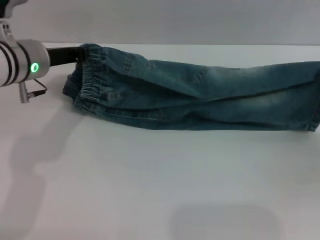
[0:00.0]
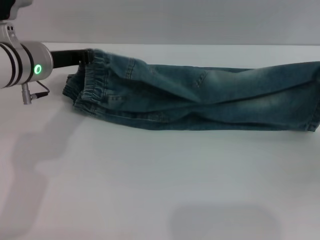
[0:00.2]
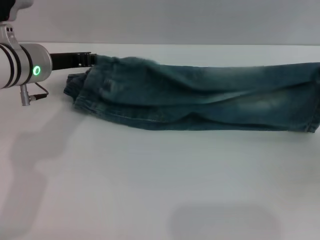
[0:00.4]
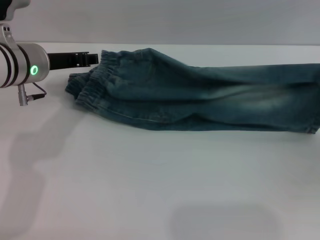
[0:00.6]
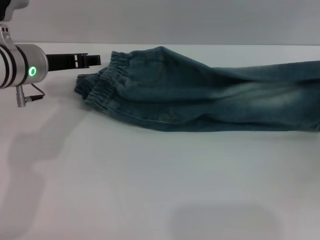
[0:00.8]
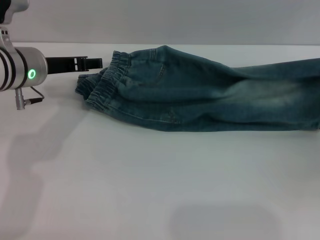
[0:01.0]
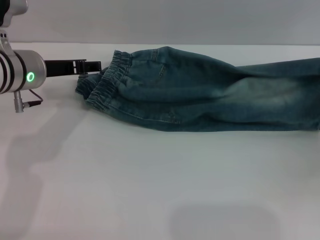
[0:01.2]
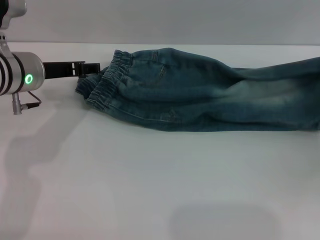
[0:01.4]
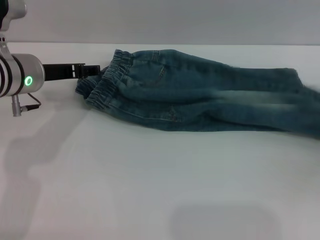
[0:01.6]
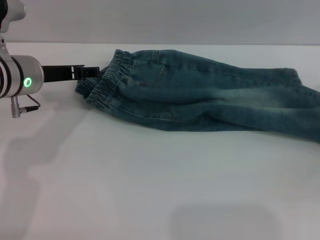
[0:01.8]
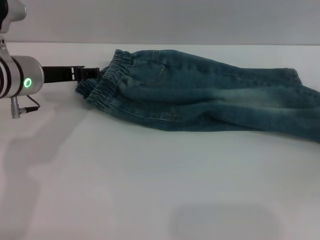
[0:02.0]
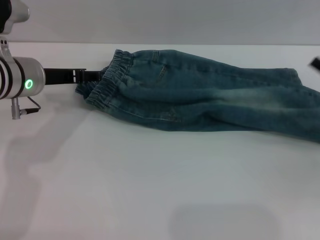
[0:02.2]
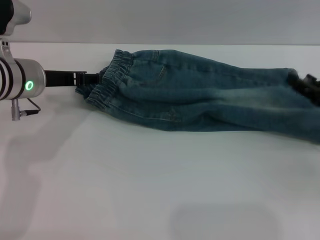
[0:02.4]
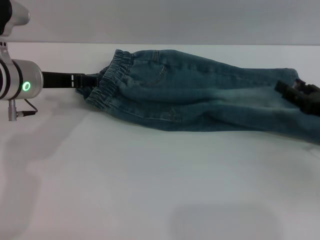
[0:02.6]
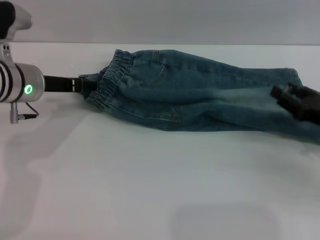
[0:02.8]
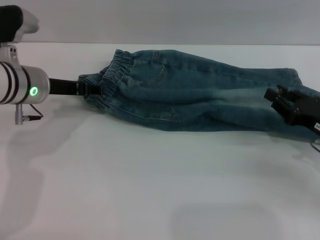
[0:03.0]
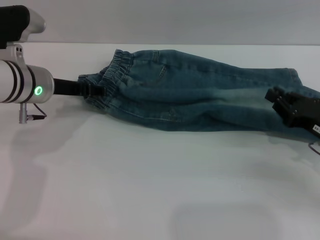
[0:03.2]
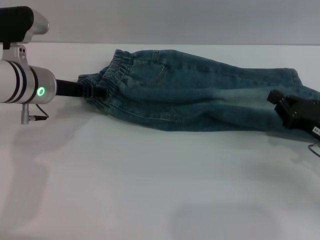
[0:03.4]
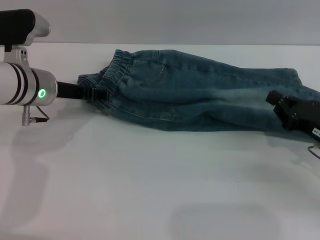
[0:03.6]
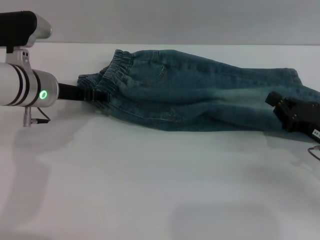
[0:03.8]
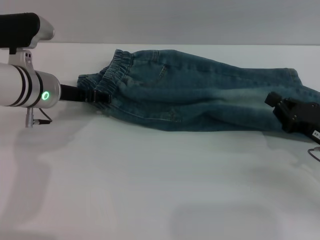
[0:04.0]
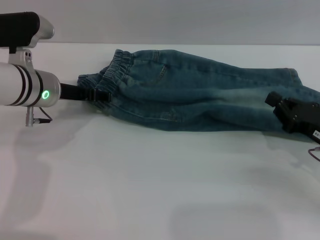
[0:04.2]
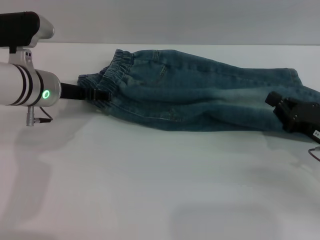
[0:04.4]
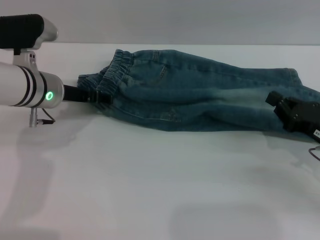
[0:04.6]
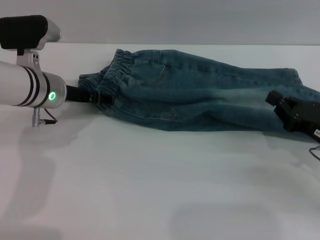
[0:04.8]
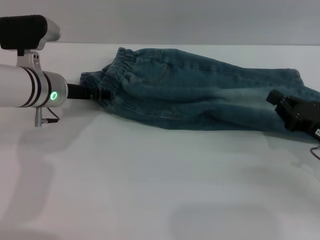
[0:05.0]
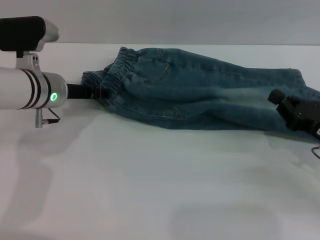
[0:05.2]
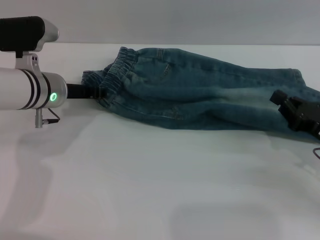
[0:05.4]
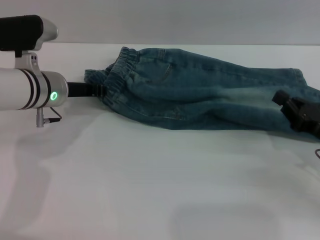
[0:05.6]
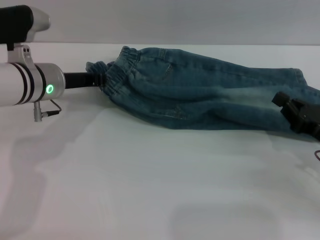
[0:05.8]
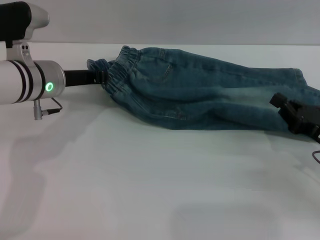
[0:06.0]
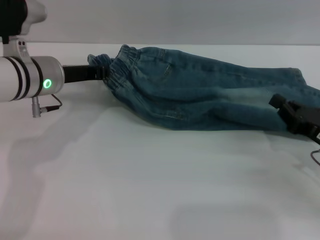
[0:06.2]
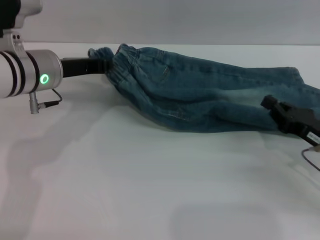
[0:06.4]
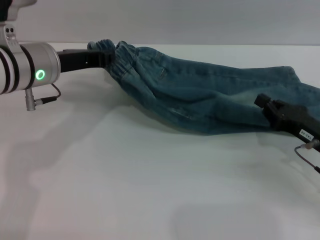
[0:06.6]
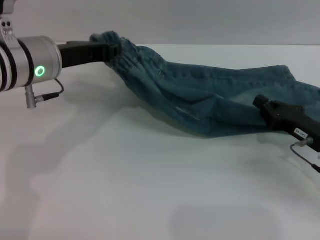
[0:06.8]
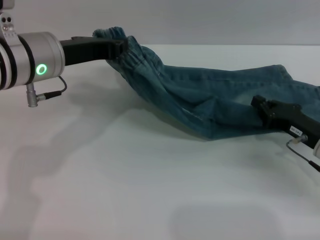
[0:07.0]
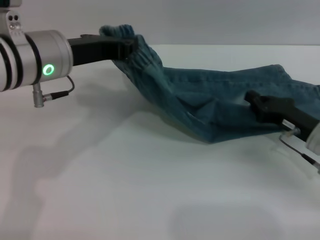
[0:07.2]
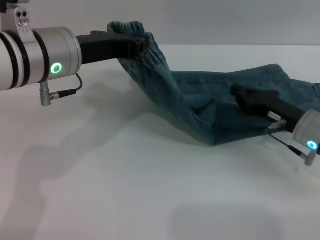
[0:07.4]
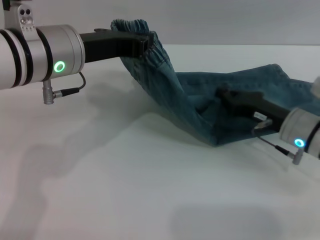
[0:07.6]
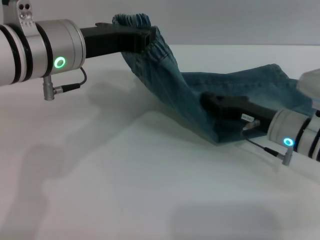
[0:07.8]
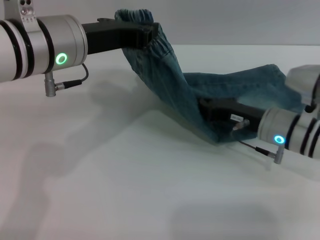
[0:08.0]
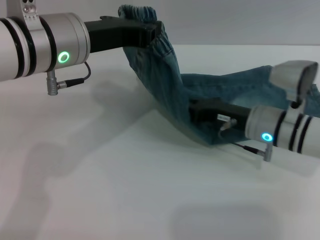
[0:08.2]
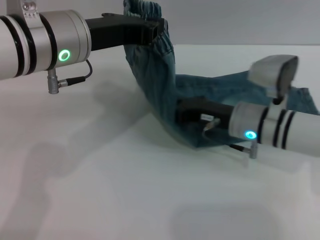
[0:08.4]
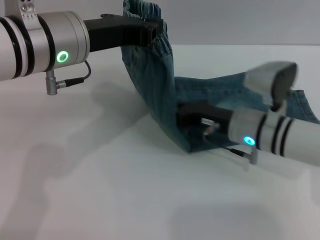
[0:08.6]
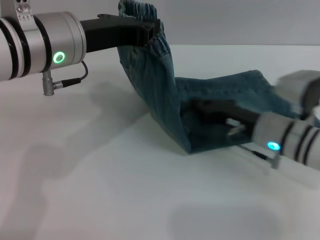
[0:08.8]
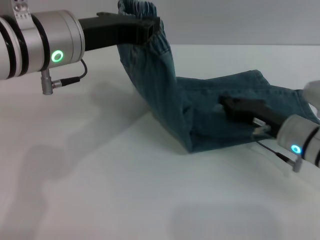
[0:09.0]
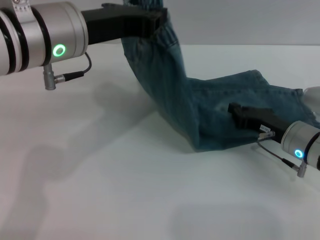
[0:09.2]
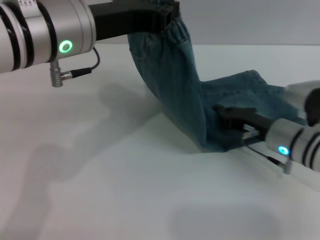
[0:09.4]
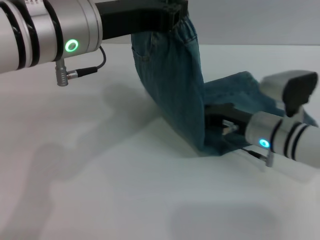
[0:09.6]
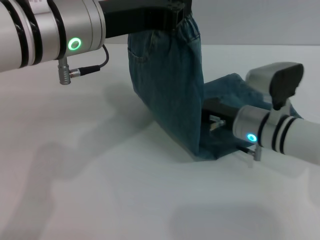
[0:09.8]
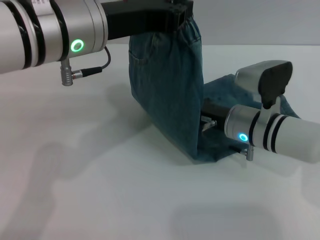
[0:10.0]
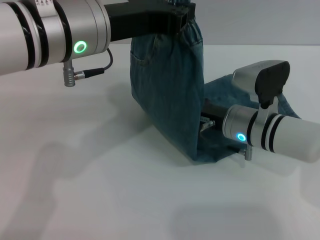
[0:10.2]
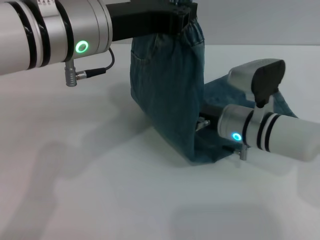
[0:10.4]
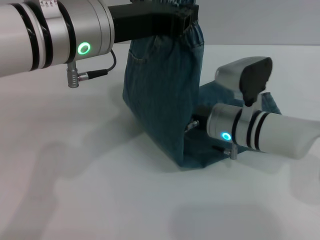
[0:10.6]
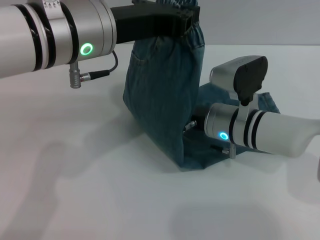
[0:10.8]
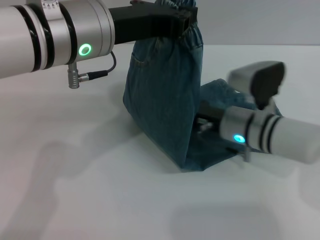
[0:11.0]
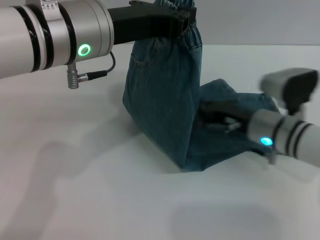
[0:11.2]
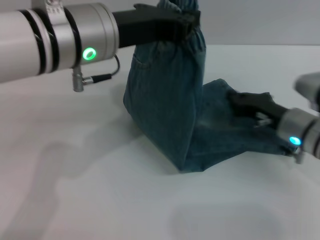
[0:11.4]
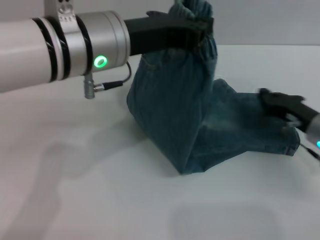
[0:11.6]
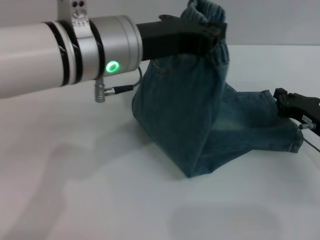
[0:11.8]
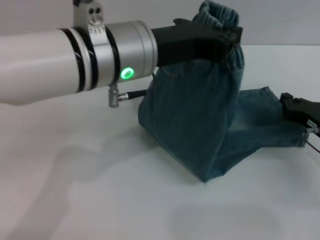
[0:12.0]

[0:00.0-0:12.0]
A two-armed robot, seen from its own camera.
Step, 0:00.0 to 0:03.6: Fold the bottom of the pants upward with both grippers.
0:00.0 to 0:01.6: The left gripper opens up.
0:01.6 to 0:03.0: The right gripper shifts roughly 5 cm to the left, and opens.
0:03.0 to 0:04.4: The right gripper closes.
0:04.4 to 0:06.0: The left gripper closes its fingers.
0:06.0 to 0:07.6: The right gripper shifts approximately 10 cm to the left and forward, while the left gripper shifts about 10 cm upward and backward.
0:07.6 to 0:09.0: The right gripper moves roughly 10 cm to the left and comes back.
0:09.0 to 0:10.4: The right gripper travels to the left by about 10 cm.
0:10.4 to 0:12.0: The right gripper shifts roughly 15 cm to the right.

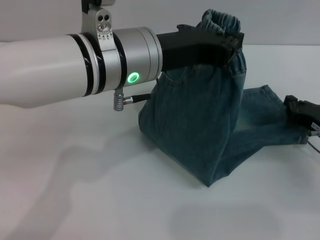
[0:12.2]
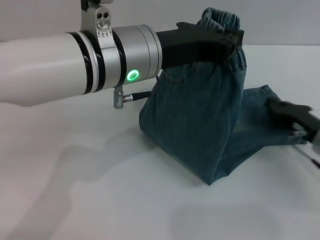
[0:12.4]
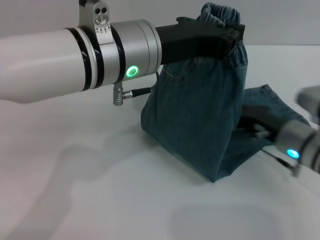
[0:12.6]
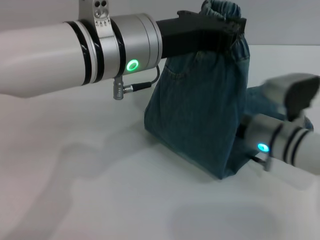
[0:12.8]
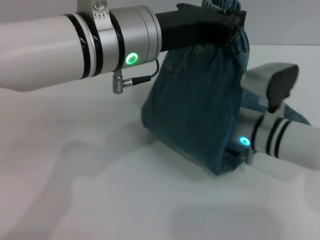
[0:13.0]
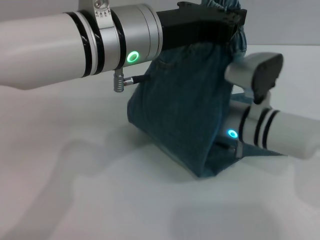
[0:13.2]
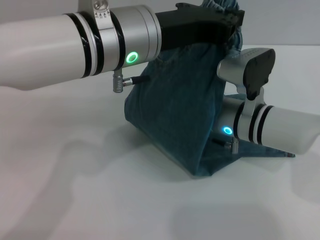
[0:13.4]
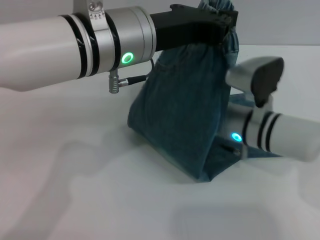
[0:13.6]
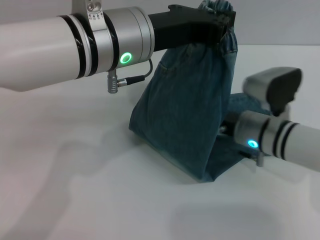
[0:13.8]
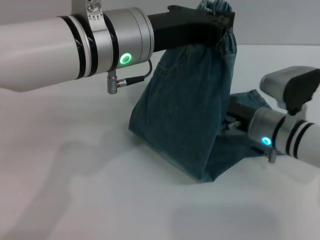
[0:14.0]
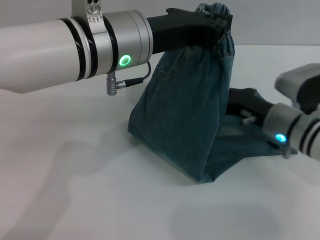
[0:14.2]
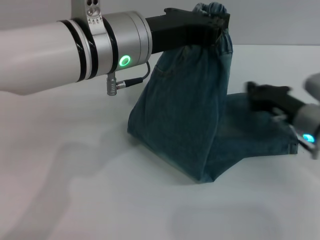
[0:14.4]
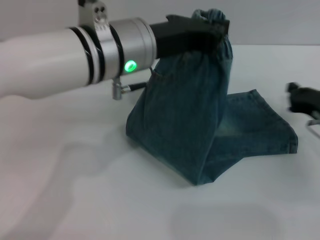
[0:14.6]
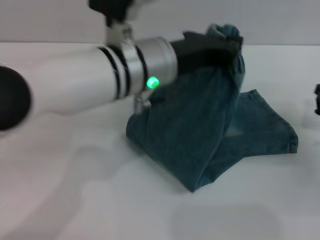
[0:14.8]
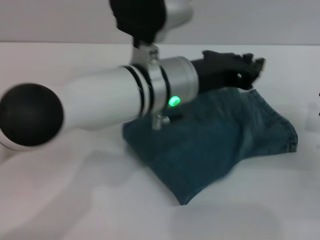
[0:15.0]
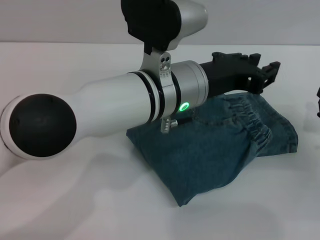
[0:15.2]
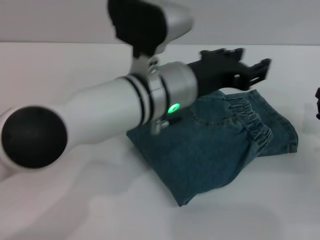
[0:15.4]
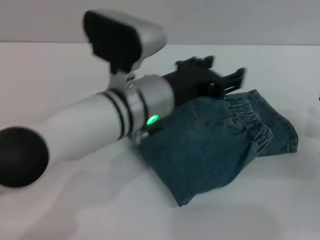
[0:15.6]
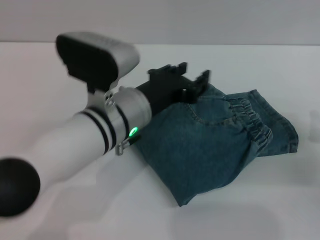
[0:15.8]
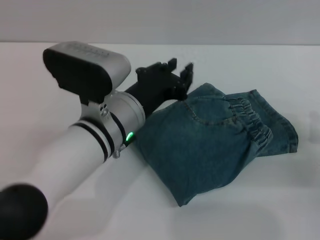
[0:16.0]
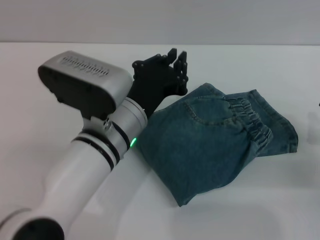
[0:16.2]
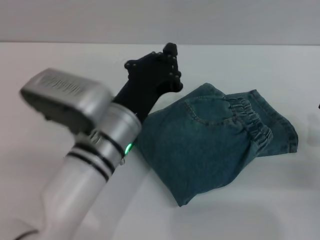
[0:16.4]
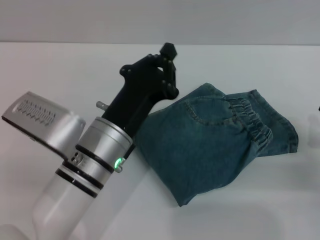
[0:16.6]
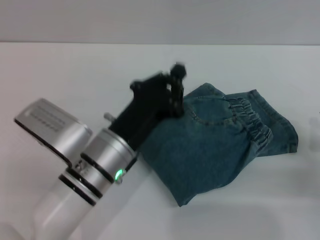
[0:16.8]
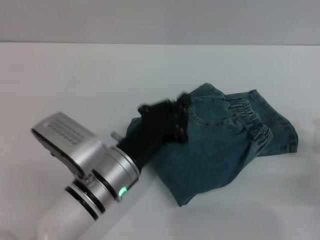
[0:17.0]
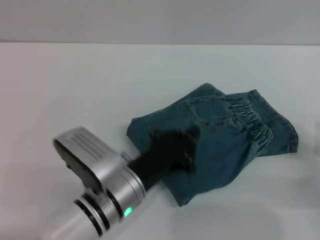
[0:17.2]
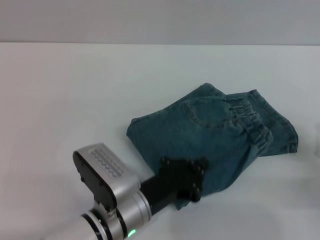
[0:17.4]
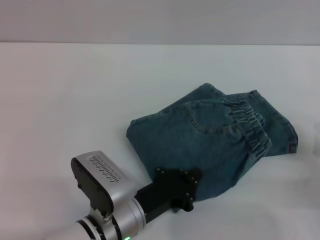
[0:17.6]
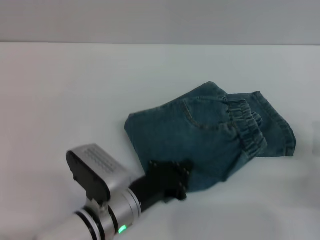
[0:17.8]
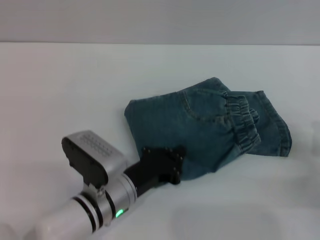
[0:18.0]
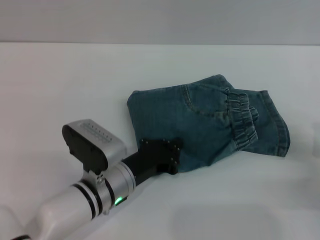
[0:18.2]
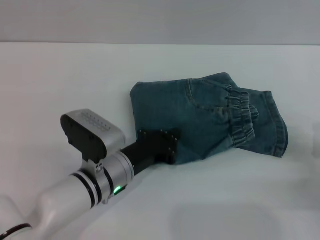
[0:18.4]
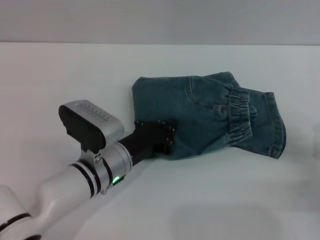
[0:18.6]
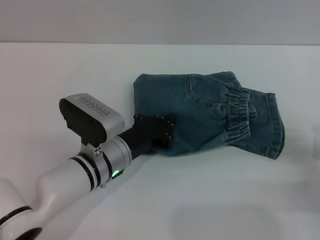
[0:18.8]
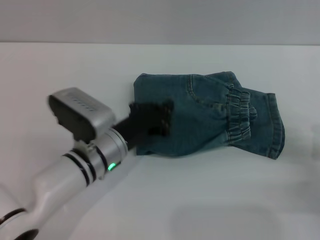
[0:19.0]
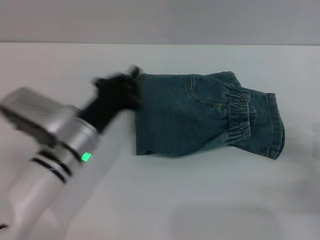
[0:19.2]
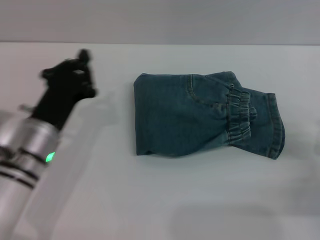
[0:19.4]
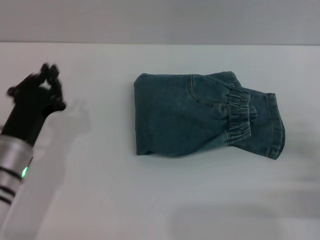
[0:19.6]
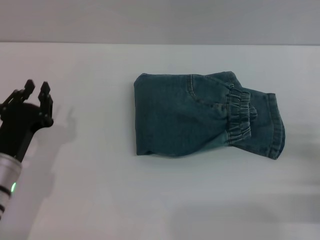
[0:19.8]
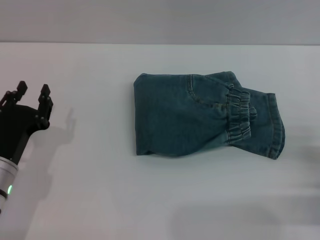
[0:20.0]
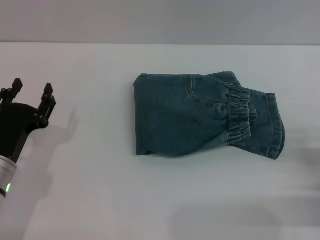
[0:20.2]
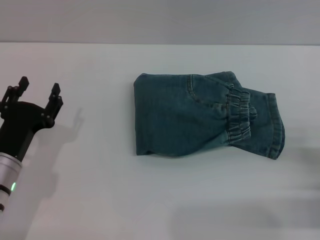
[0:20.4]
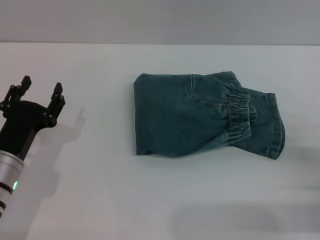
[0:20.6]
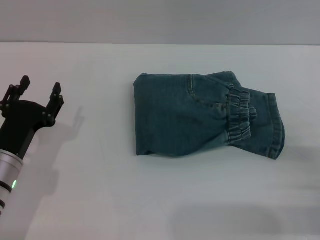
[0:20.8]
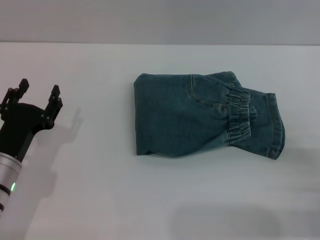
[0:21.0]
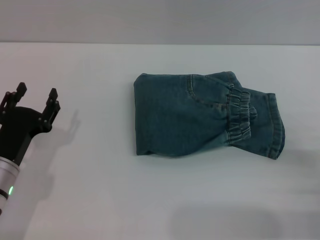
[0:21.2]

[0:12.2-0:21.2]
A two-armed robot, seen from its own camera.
Step, 0:12.2 to 0:15.4: Fold the pants from left to right with the left gripper.
Step, 0:15.8 to 0:19.4: Place the folded trousers onto the center area with the left grippers.
0:12.2 to 0:13.8: The right gripper goes approximately 15 cm to the left.
0:13.8 to 0:15.2: The left gripper moves downward and to the right, about 10 cm. Meanwhile the right gripper goes about 15 cm to the right.
0:15.2 to 0:16.6: The left gripper goes roughly 15 cm downward, to the left and backward, and opens, then closes once more.
0:16.6 to 0:18.2: The left gripper goes about 10 cm downward.
0:18.2 to 0:19.8: The left gripper shifts roughly 15 cm to the left.
0:19.8 to 0:21.2: The left gripper opens up.
